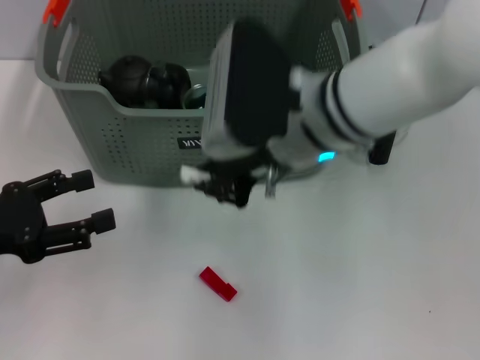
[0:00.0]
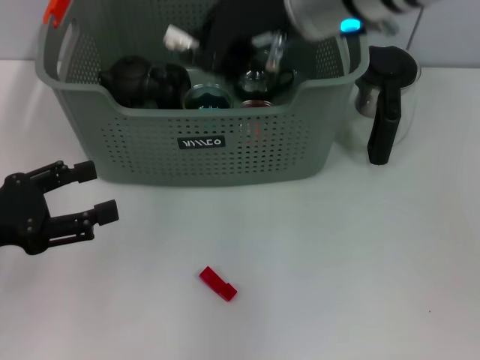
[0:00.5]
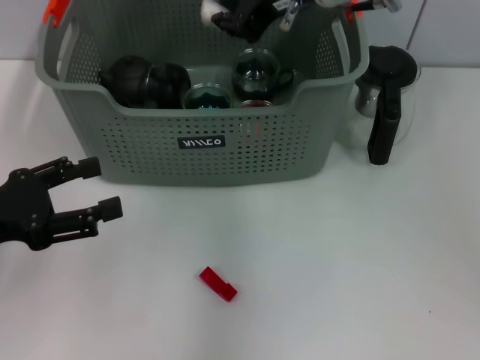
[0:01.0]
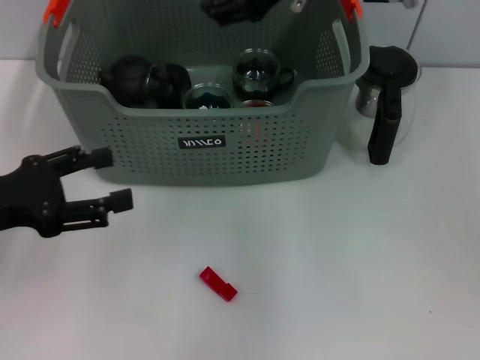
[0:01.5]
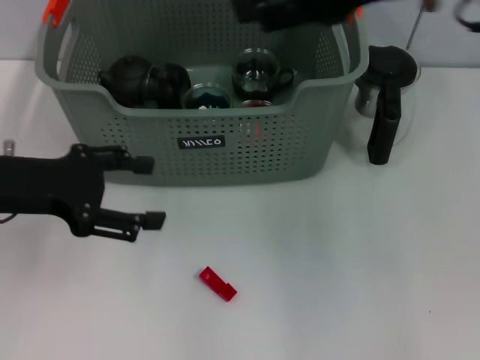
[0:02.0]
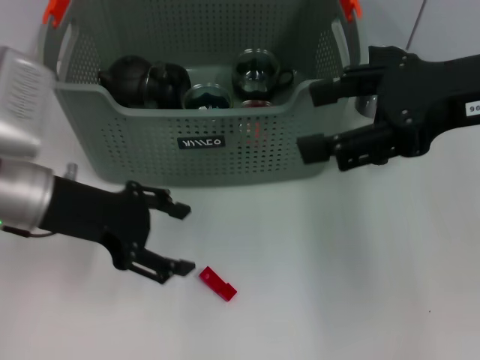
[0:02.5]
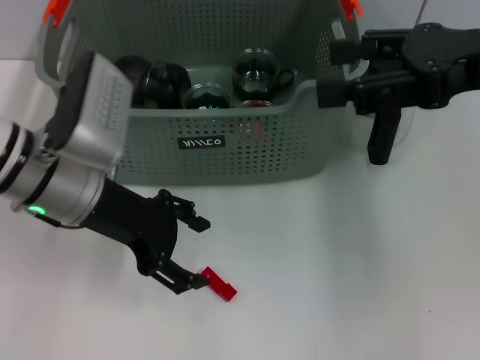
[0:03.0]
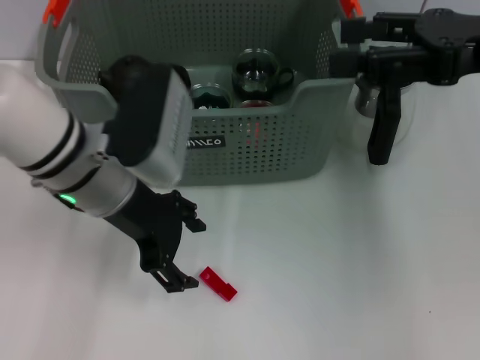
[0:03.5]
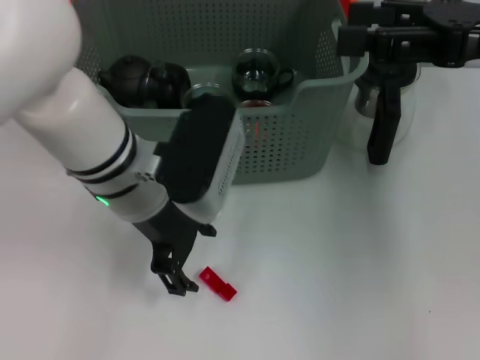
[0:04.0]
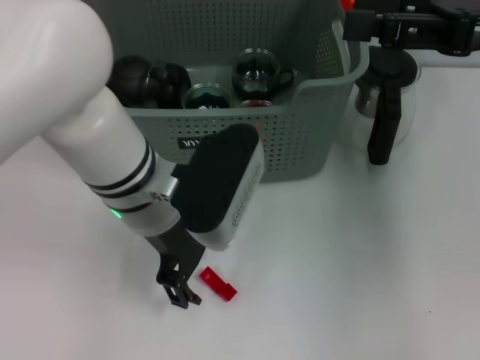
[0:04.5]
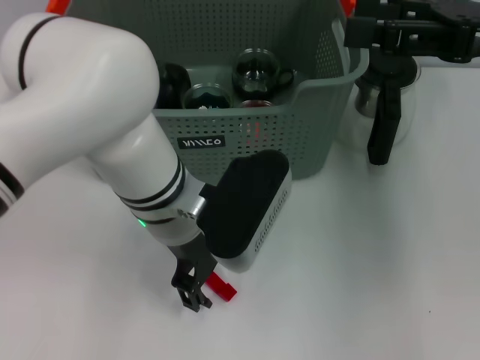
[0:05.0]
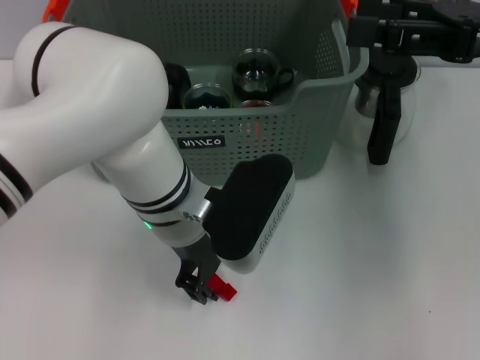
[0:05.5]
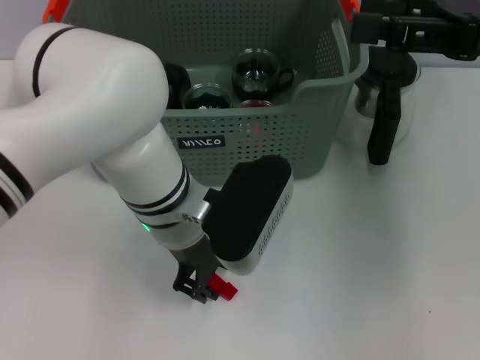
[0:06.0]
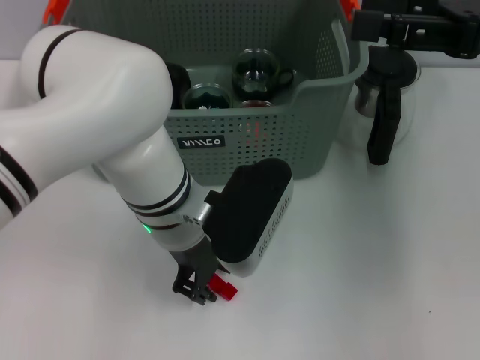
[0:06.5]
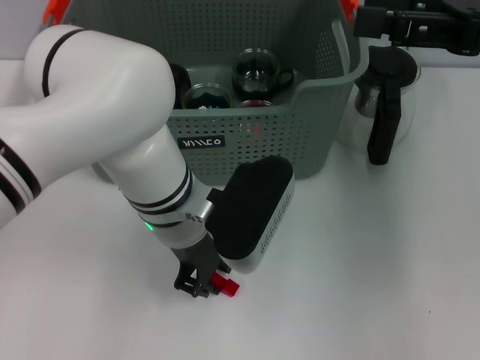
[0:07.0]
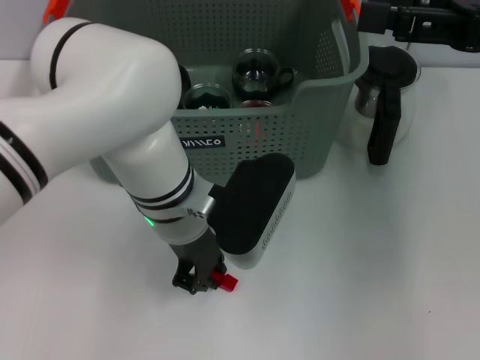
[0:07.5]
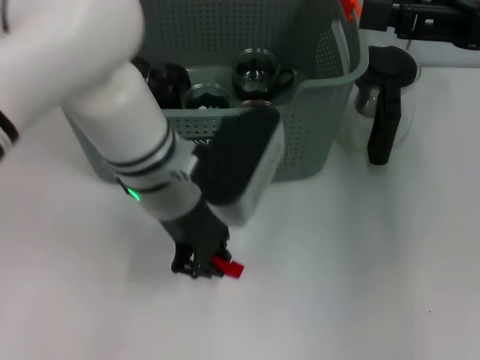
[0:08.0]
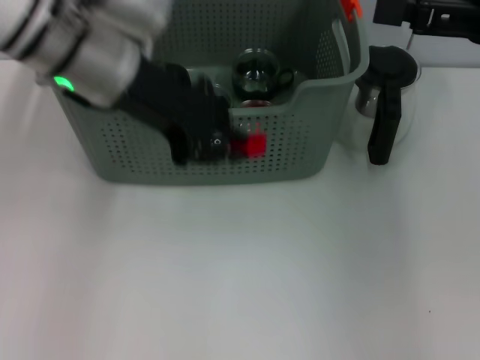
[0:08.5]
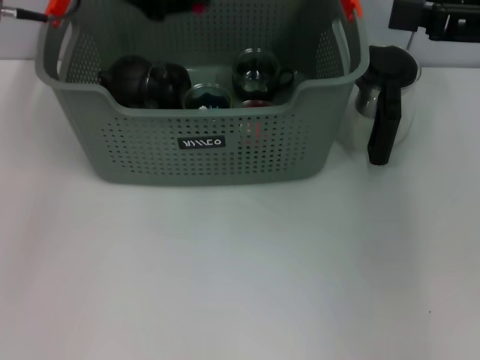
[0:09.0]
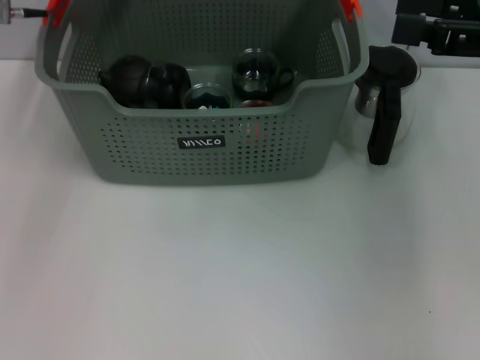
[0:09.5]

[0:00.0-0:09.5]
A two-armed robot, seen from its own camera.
Task of the whole recording: pick up the teacup on the table and place it into the storage bin, pick up the block on the table and place it into the storage bin.
Step, 0:00.0 to 0:01.5: Place the white block in the storage box with right gripper.
Step, 0:02.0 to 0:07.0: Grasp the red block with left gripper.
0:00.0 to 0:02.0: The right gripper moves to the right and upward, about 15 cm, and opens. The left gripper travels forward by roughly 5 cm.
0:02.0 to 0:04.0: The right gripper travels to the right and downward by about 10 cm, while the left gripper is displaced to the right by roughly 15 cm.
0:04.0 to 0:05.5: The left gripper moves about 5 cm.
0:05.5 to 0:07.5: The left gripper closes its fingers.
0:07.5 to 0:09.5: The left gripper goes about 25 cm to the left, forward and upward.

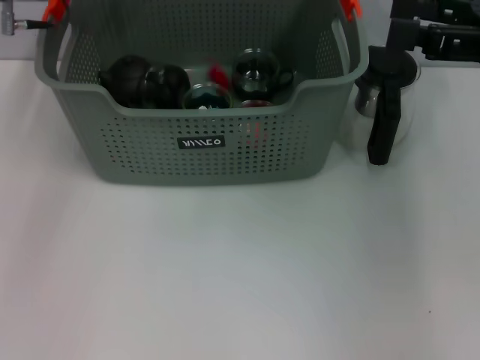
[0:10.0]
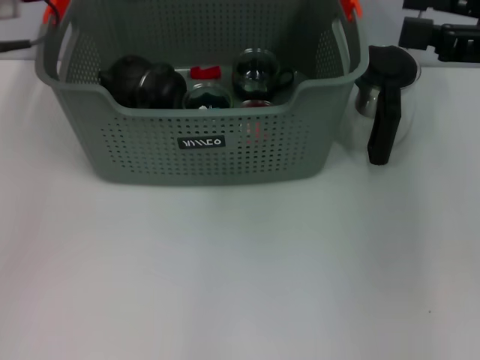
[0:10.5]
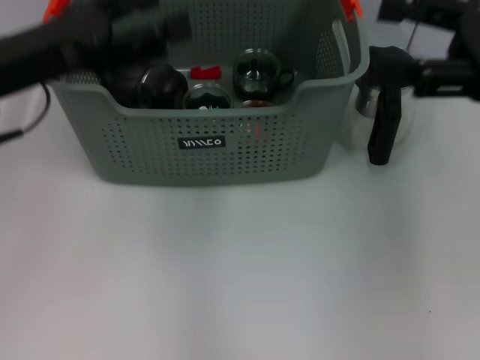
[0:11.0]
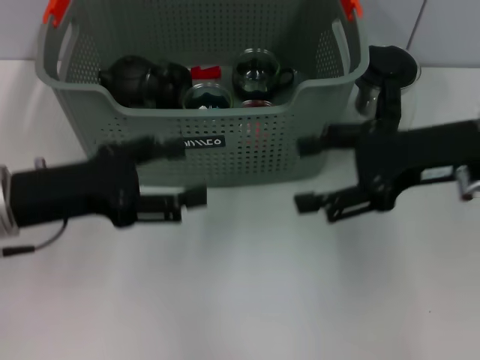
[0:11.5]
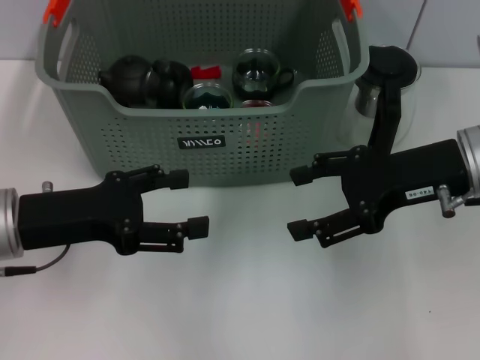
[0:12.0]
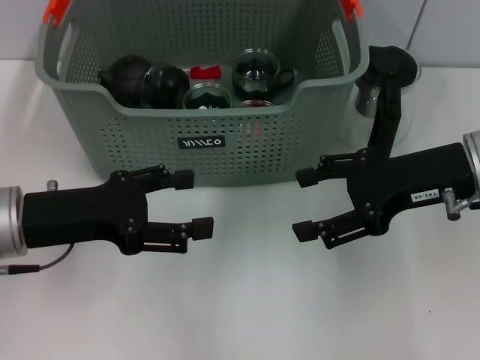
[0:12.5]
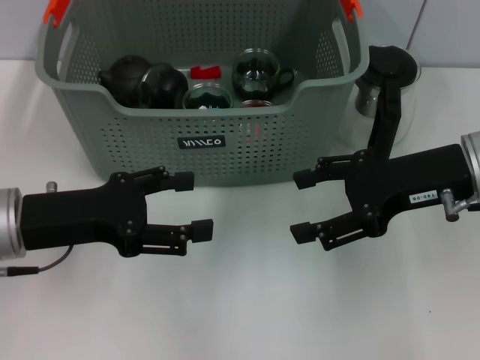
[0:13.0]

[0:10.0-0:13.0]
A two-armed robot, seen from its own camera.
Task of the whole recording: pick up the teacup on the table and place it into the storage bin, pick up the block on the table and place it into the storage bin.
0:10.0 to 0:11.5: The right gripper heads downward and to the left, covering some 10 cm. Meanwhile the left gripper goes some 20 cm backward and downward, and opens.
0:11.5 to 0:13.0: There are only small adjustments of the grippers.
